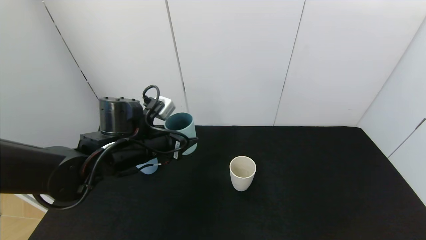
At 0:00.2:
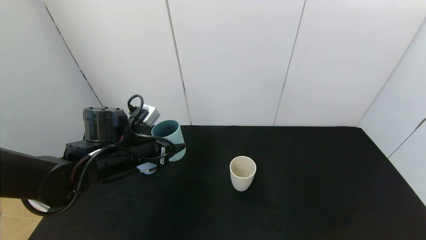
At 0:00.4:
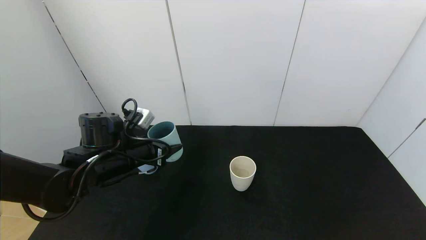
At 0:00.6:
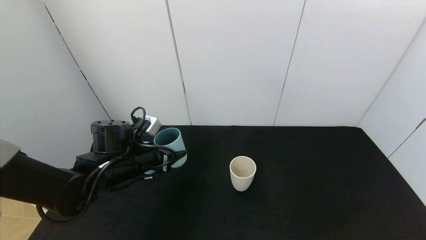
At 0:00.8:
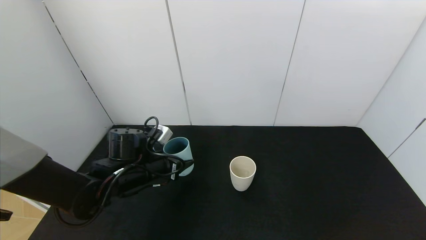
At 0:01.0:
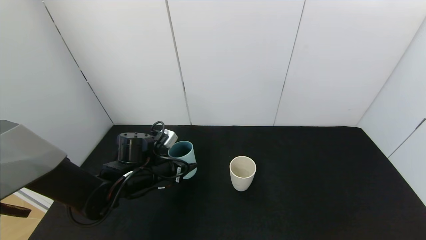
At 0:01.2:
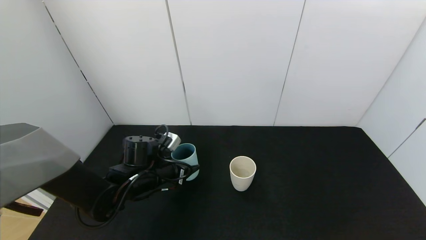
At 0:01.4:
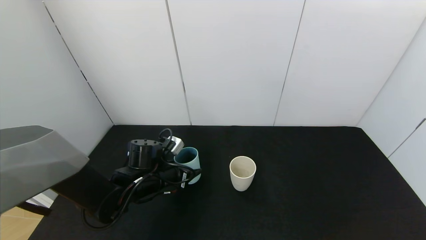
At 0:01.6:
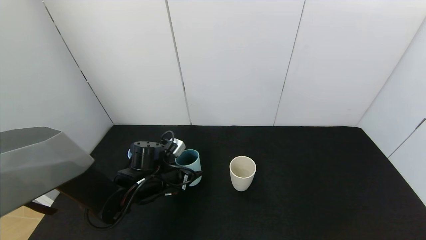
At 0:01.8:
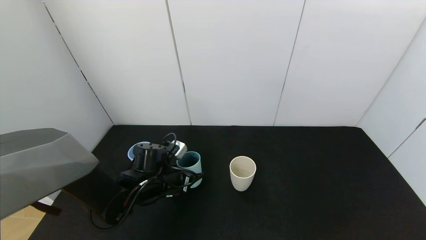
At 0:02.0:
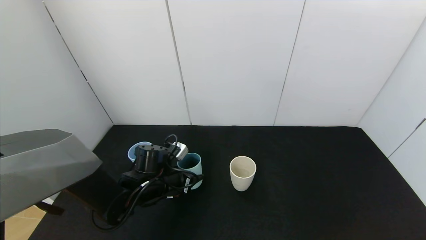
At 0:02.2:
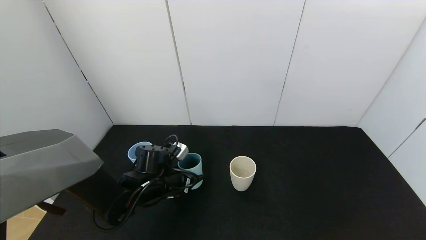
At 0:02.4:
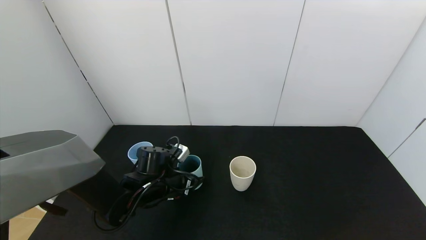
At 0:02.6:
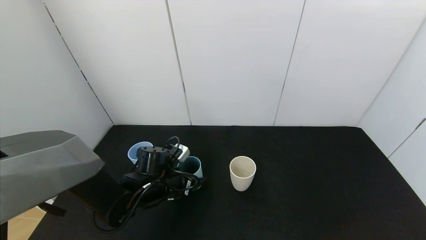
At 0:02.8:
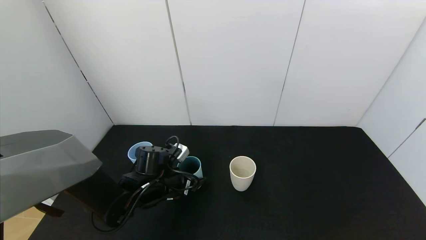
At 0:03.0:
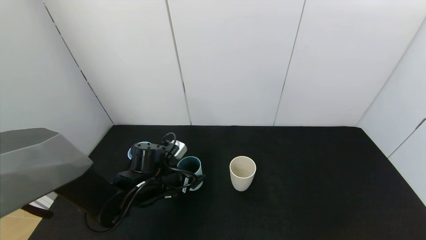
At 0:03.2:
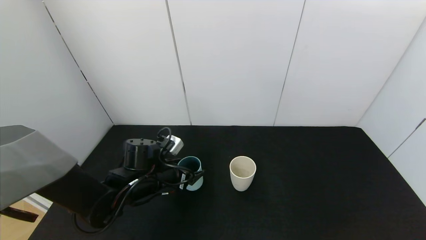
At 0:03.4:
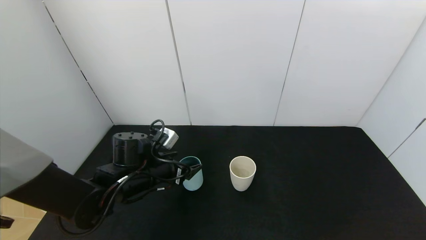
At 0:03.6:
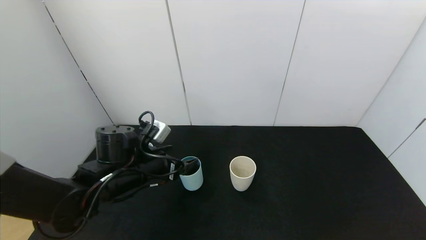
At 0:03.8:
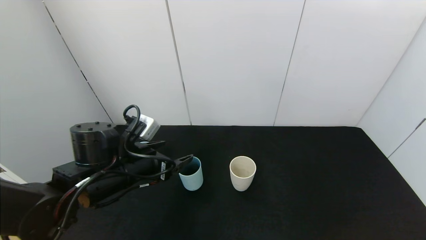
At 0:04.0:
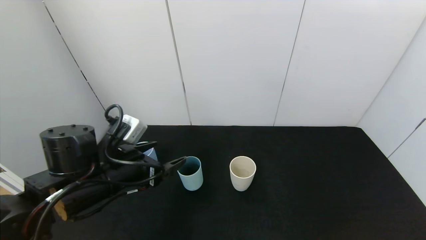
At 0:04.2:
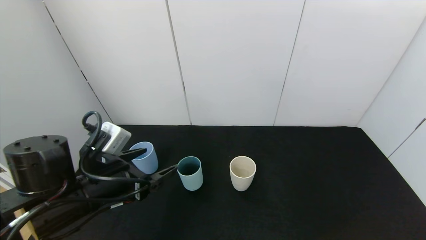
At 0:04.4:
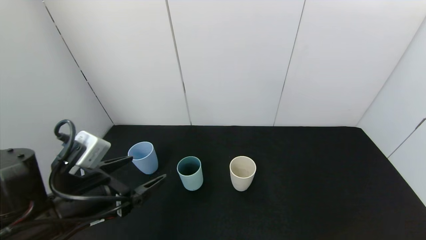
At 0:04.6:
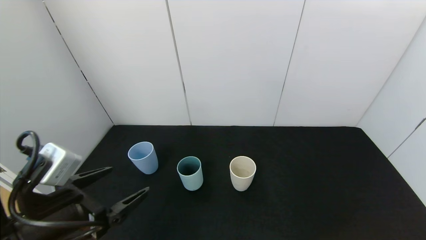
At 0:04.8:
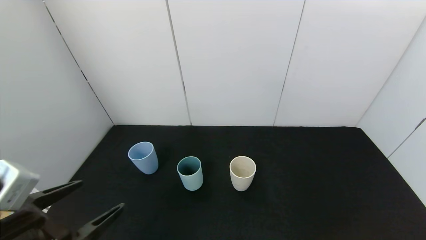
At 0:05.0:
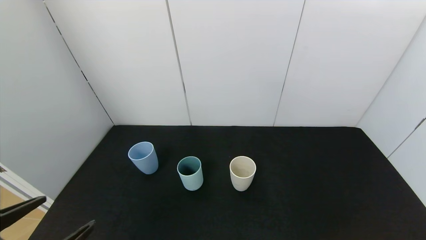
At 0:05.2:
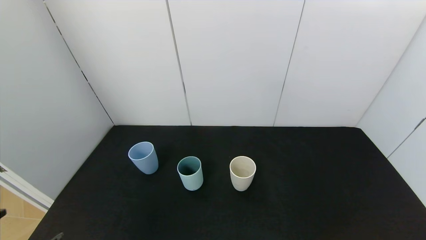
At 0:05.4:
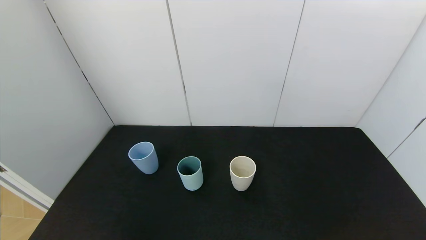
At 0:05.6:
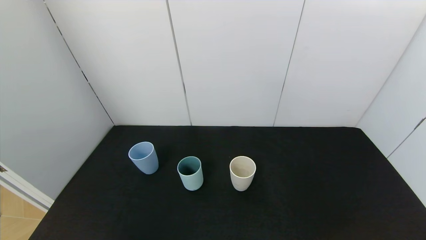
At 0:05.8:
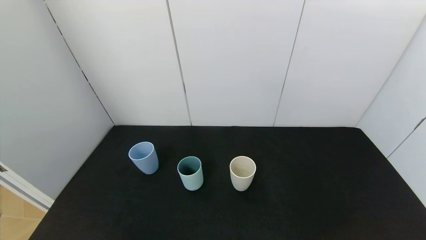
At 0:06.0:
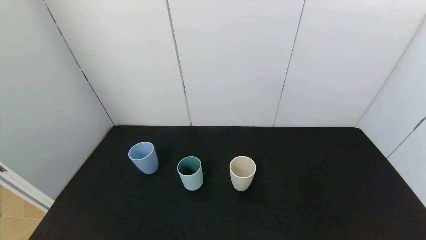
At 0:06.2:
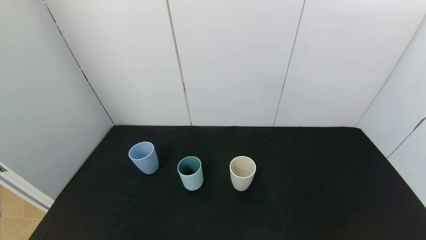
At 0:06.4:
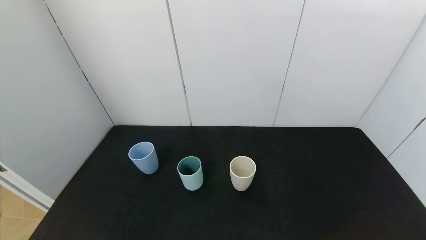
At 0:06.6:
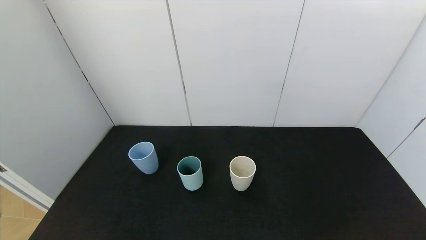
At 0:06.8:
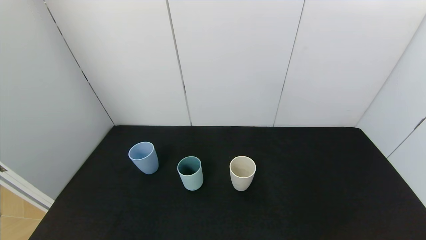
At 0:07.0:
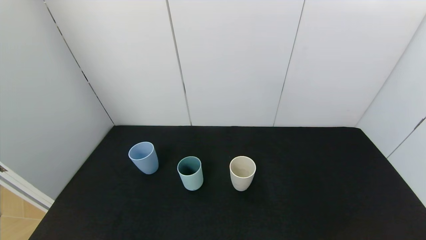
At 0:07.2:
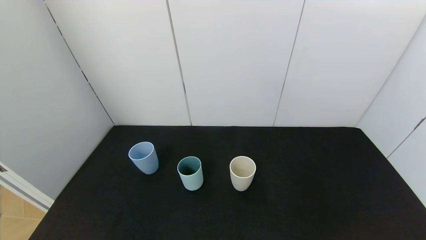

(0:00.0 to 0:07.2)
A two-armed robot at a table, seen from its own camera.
Task of the whole recording: use the gripper to pour the water into the other two cups on black table.
Step, 0:00.0 - 0:03.2: Place the green plastic cup on the table with left gripper.
0:00.0 - 0:01.4: The left gripper is displaced downward by about 10 cm.
0:01.4 - 0:02.8: The left gripper opens up.
0:02.8 - 0:04.4: The left gripper travels backward, upward and to the left by about 20 cm.
0:04.4 - 0:05.8: The left gripper shifts roughly 20 cm backward.
